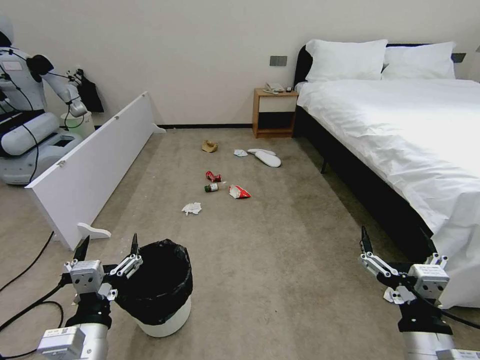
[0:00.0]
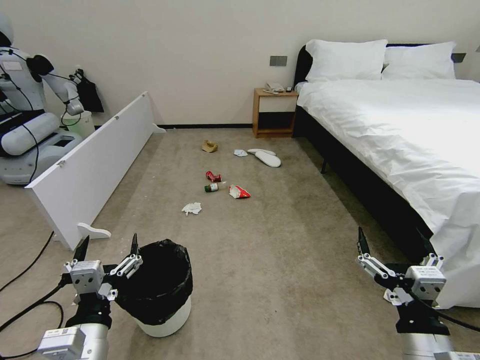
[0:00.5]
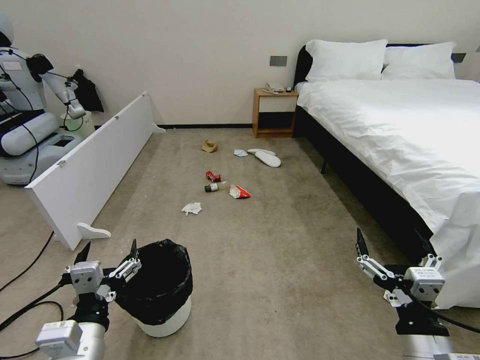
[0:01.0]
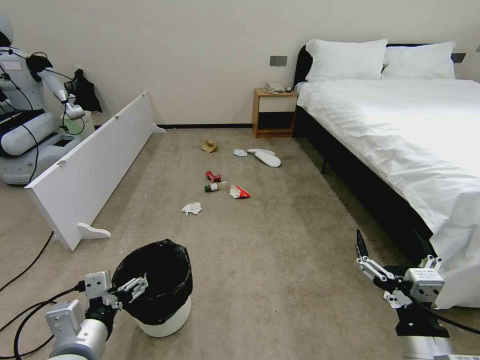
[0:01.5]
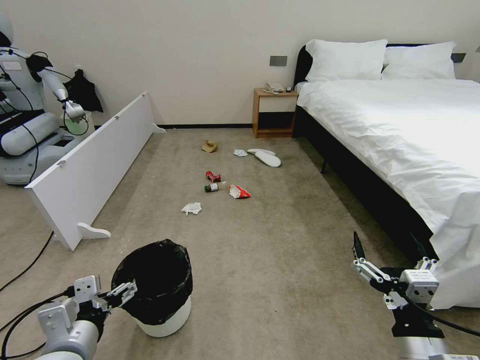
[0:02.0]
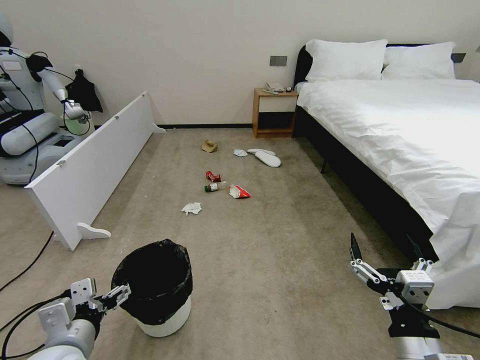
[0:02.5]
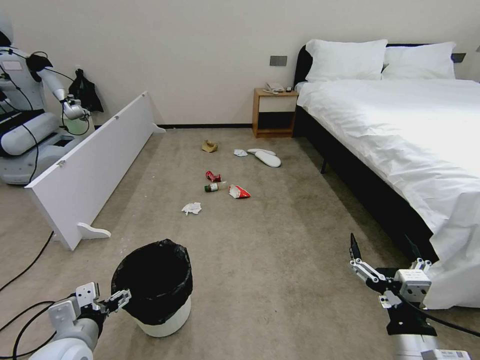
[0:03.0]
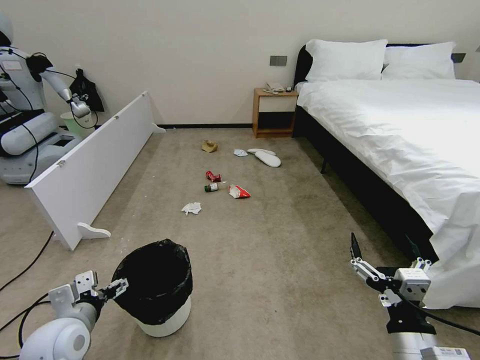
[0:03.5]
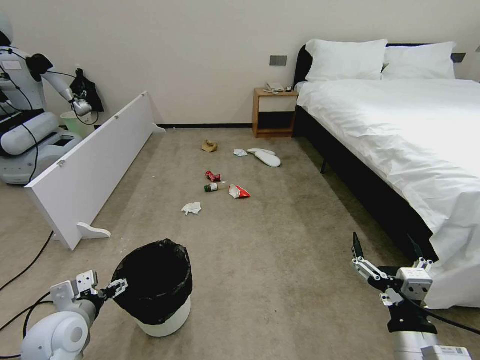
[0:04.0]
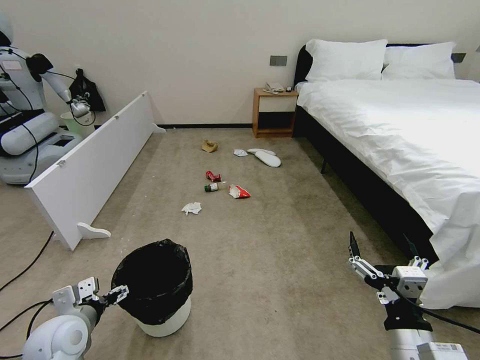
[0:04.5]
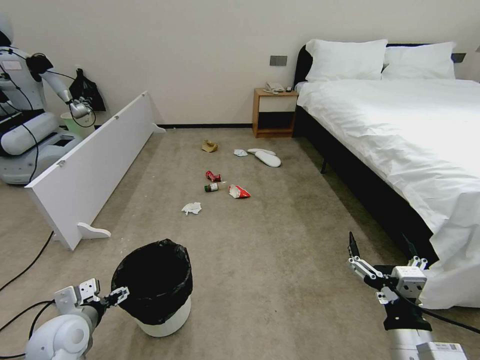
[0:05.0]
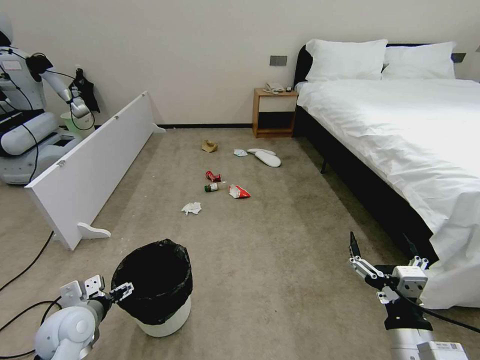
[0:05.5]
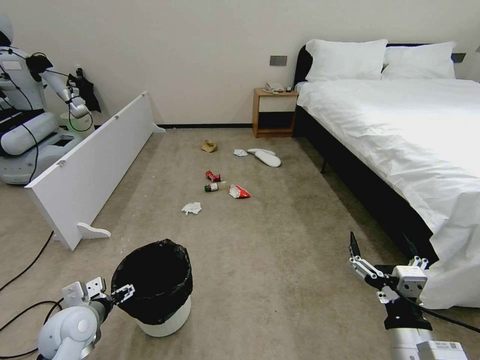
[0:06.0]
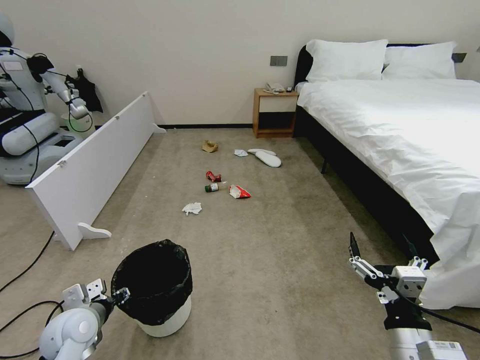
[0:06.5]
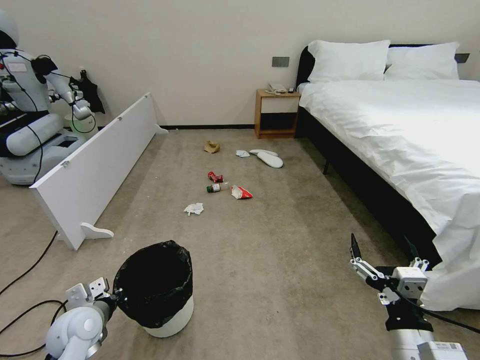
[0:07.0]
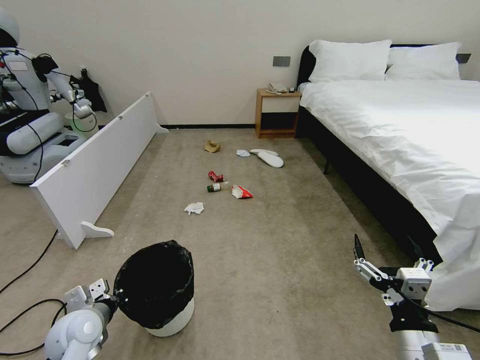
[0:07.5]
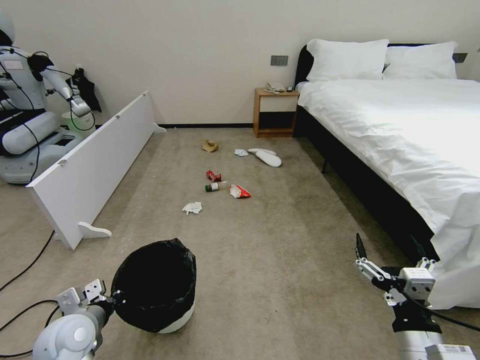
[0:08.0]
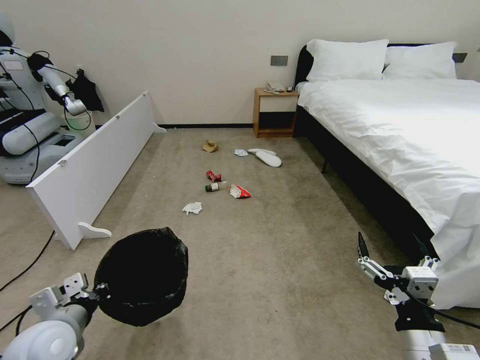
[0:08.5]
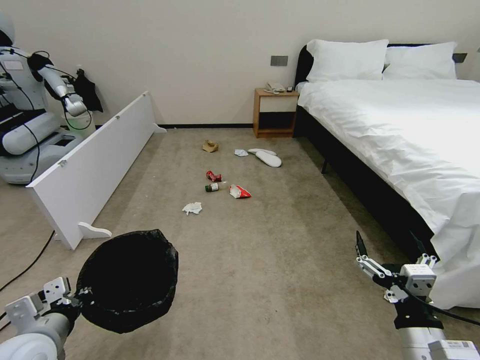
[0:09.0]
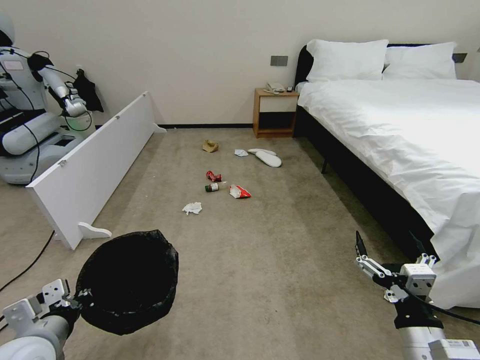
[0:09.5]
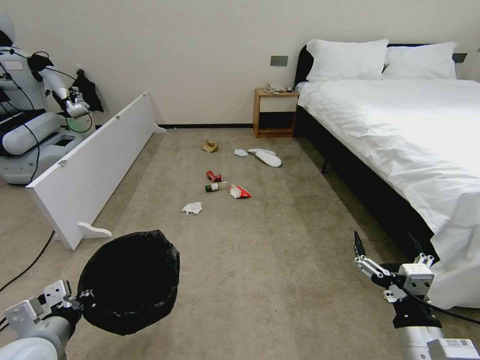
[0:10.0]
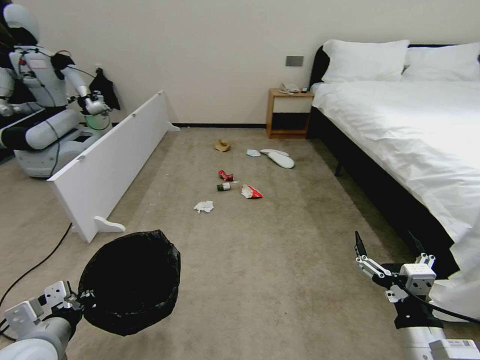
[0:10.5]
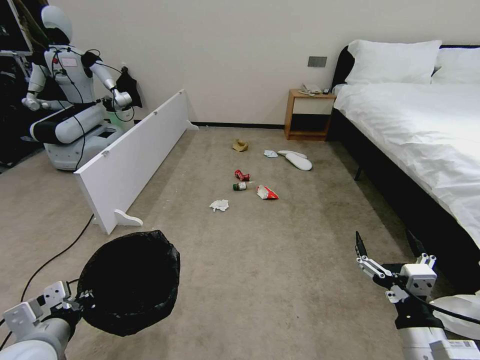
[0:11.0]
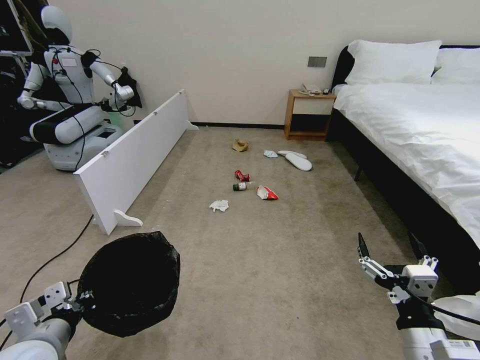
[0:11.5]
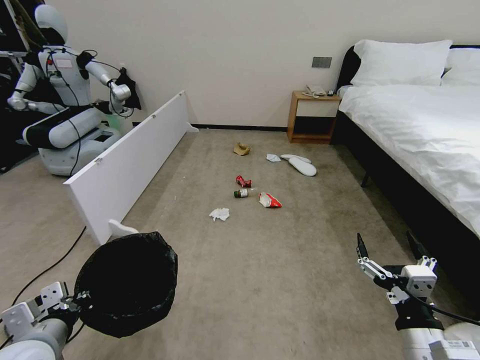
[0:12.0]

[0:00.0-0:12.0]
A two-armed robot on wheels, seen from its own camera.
Task of the whole recording: Pick up the trash bin, then pick up the garbage from the floor and place it into the trash bin.
0:02.0 to 0:04.0: The left gripper is displaced forward, to the left and downward by some 15 cm.
0:04.0 to 0:06.0: There are only small adjustments of the grippers.
0:06.0 to 0:08.0: The left gripper closes its fingers.
0:08.0 to 0:10.0: The left gripper heads backward and upward, covering roughly 10 cm.

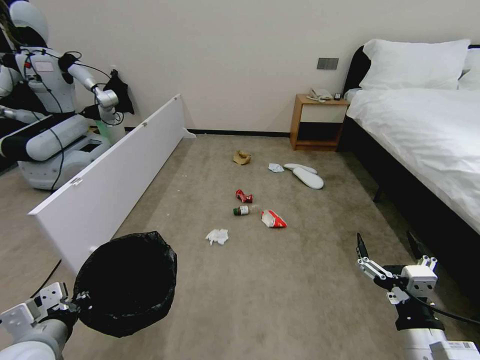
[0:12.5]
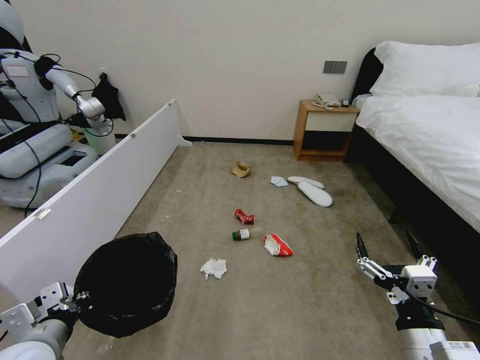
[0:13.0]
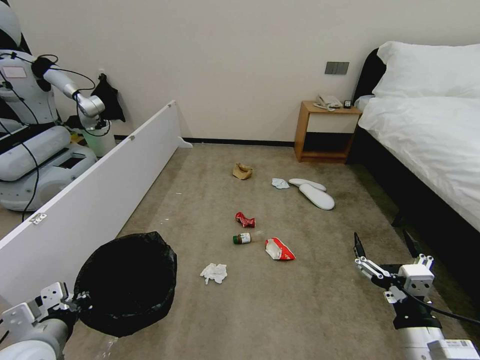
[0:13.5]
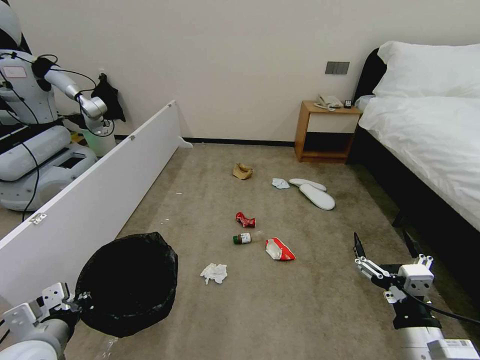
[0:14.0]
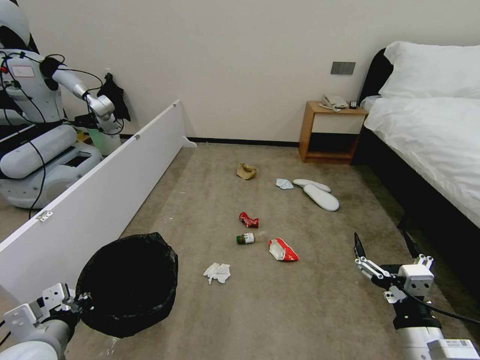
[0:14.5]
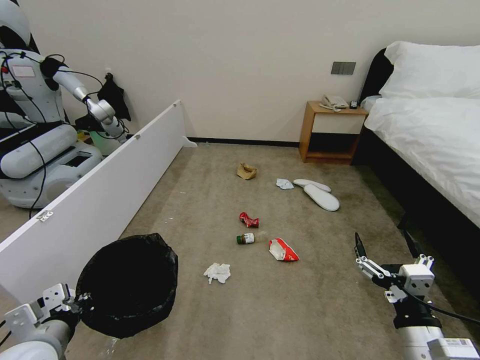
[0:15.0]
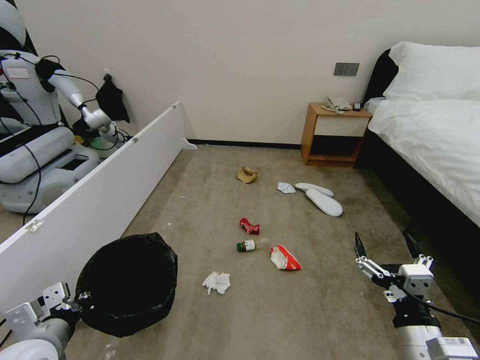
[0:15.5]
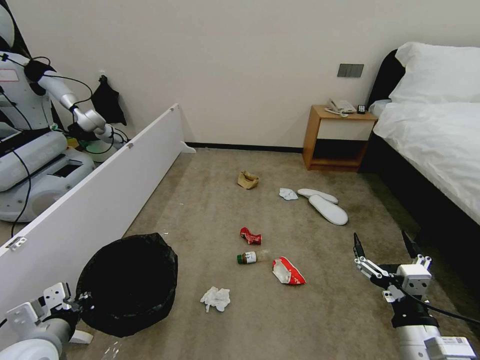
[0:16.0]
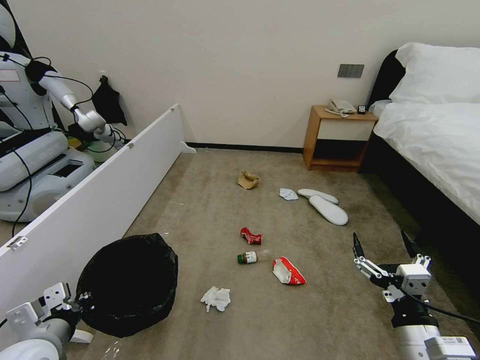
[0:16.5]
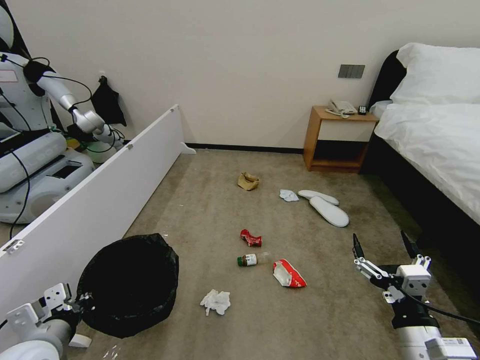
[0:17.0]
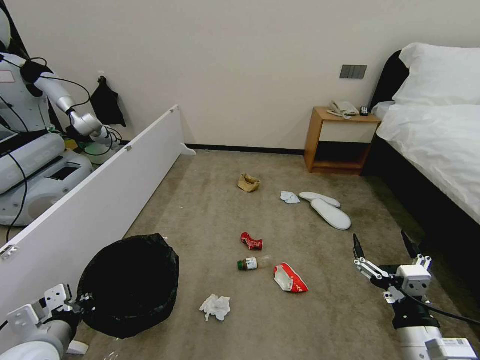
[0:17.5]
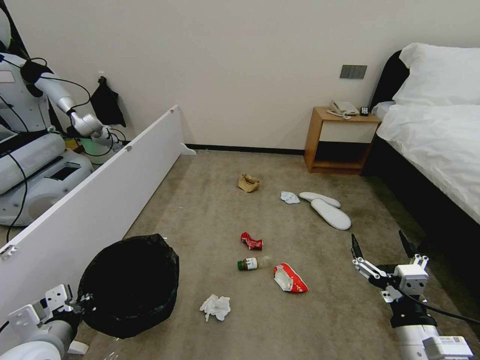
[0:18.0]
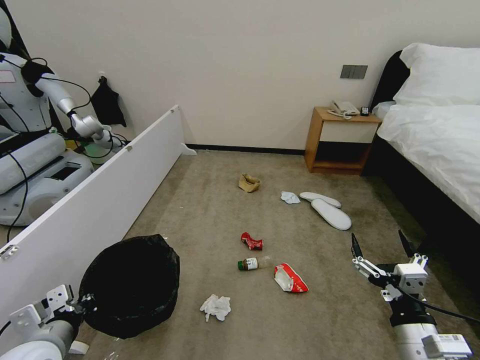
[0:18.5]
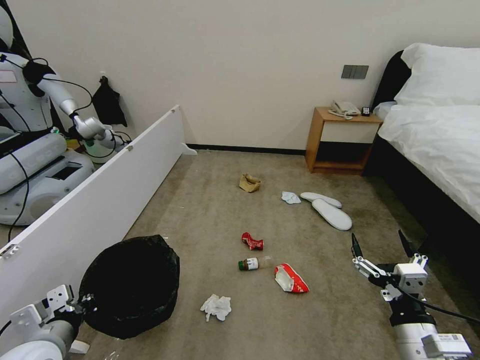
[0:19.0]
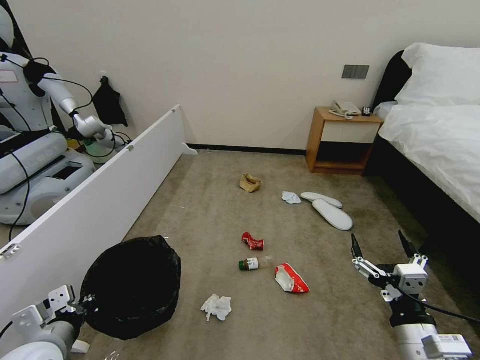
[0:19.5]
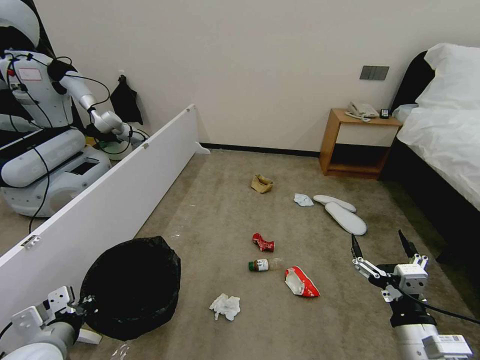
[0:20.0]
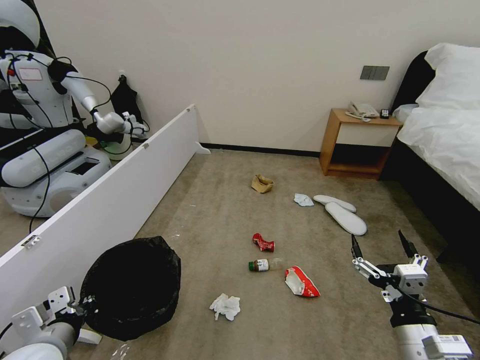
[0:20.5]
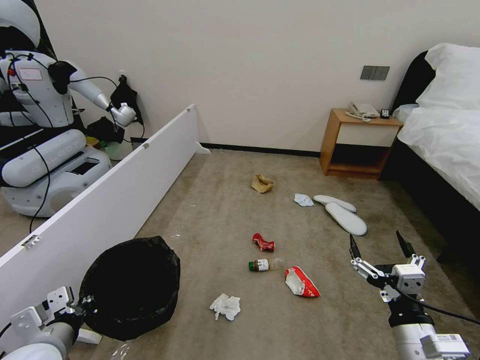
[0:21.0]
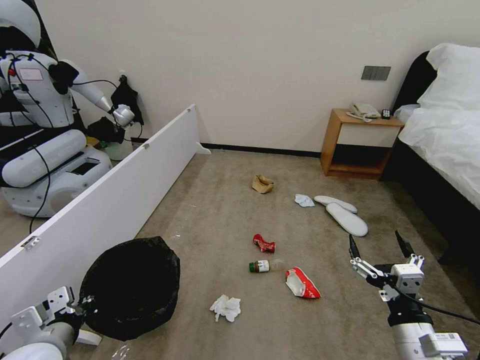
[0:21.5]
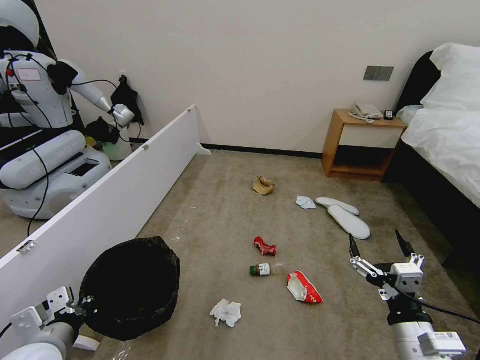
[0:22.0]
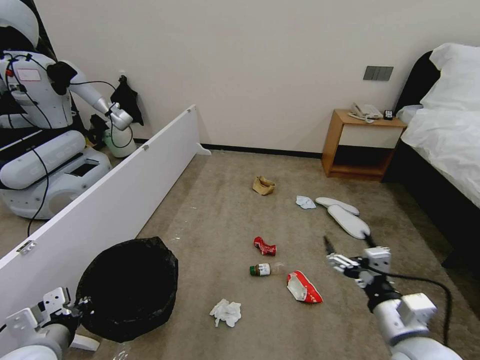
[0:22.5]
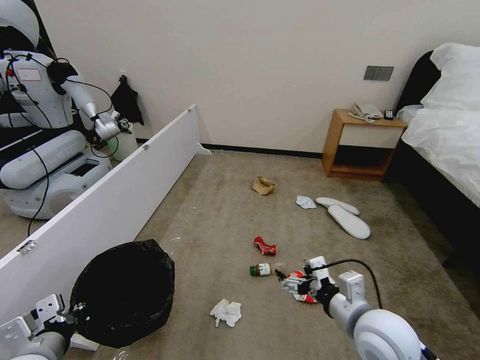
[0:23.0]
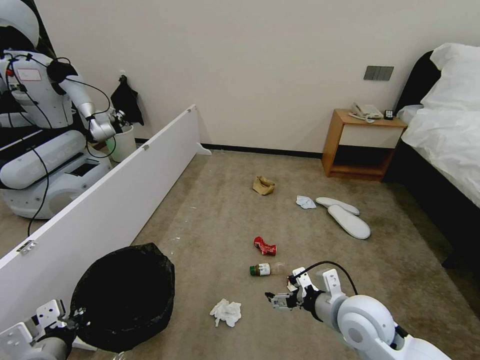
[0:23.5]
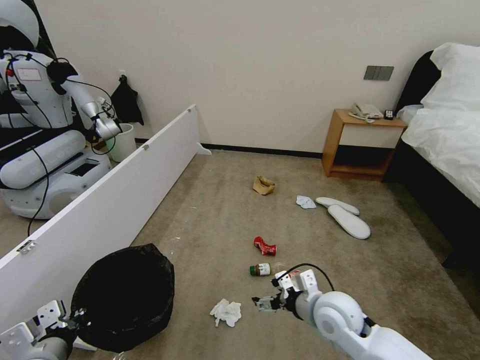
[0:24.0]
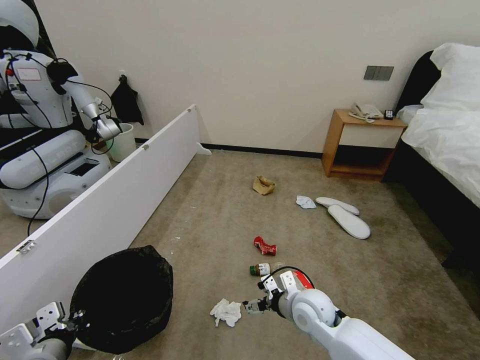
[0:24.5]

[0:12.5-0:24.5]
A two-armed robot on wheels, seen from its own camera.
Task of the whole recording: Pick up the trash bin, then pick up the garbage from the floor and place it into the trash bin.
0:14.5 to 0:18.5: Both grippers stay about where they are.
0:20.5 to 0:22.5: The grippers make only small movements.
0:22.5 to 0:24.5: The right gripper goes about 20 cm forward, to the left and downward.

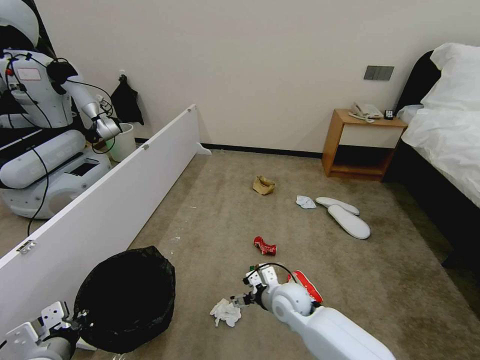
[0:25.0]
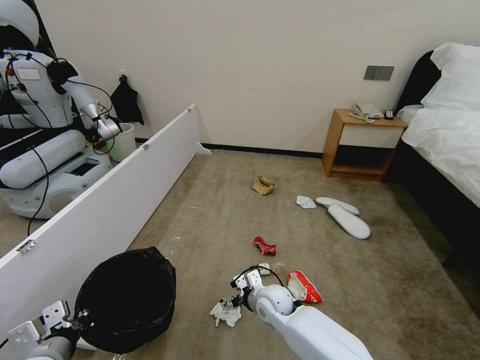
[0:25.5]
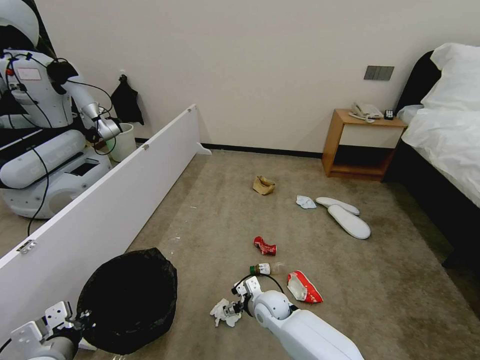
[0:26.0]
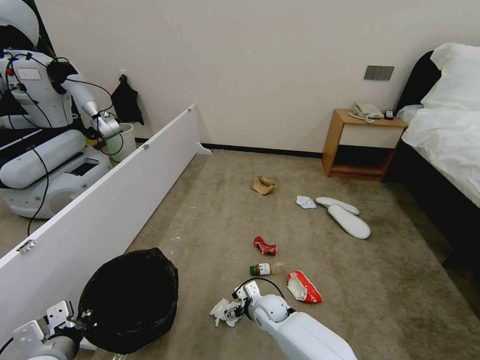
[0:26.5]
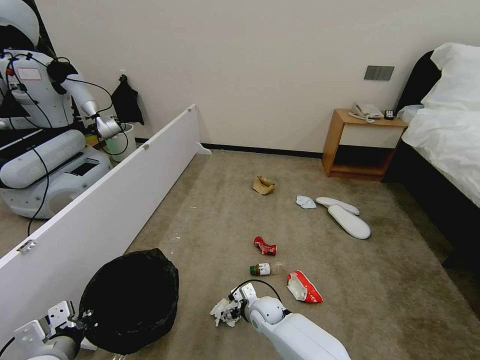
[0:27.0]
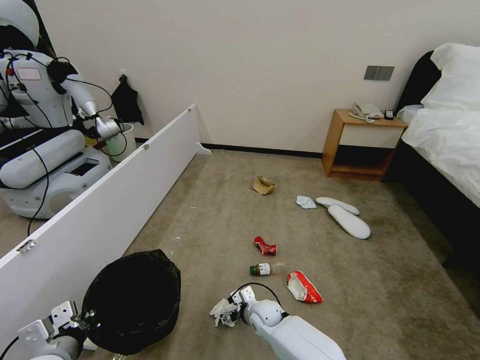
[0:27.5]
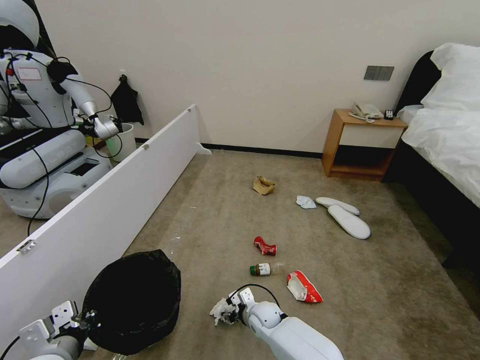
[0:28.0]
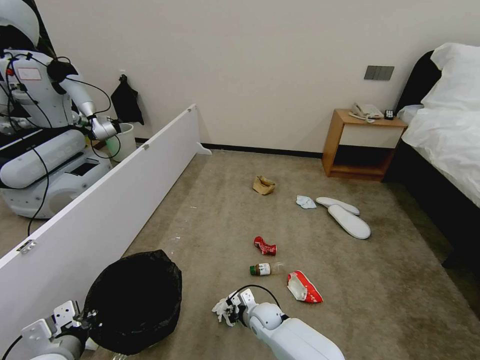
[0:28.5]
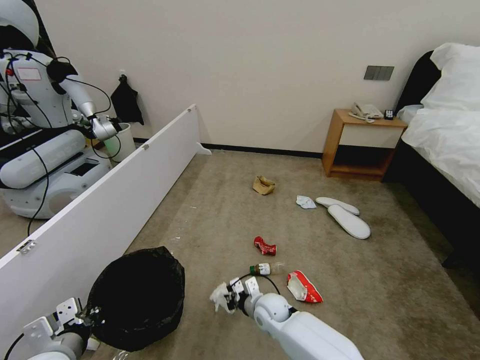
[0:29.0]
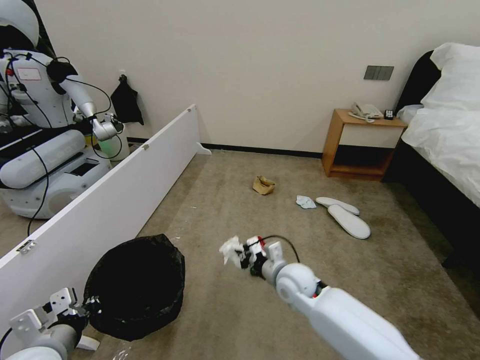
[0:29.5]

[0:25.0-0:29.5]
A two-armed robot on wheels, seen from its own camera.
Task of the whole recording: Pick up the trash bin, then pick up the garbage from the floor and place it into the trash bin.
0:25.0 to 0:27.0: The right gripper is displaced downward and to the left by roughly 10 cm.
0:27.0 to 0:29.5: The right gripper travels upward by roughly 15 cm, and closes its fingers.
